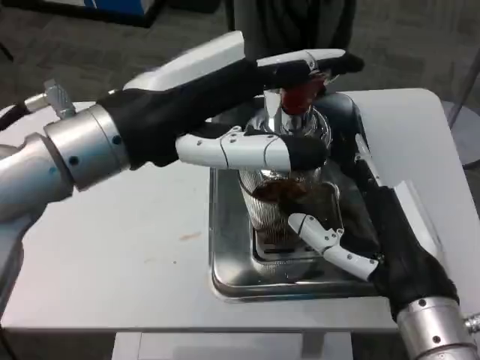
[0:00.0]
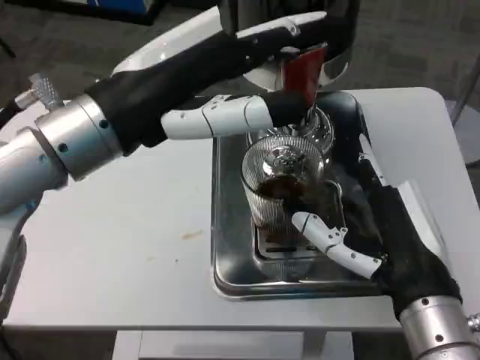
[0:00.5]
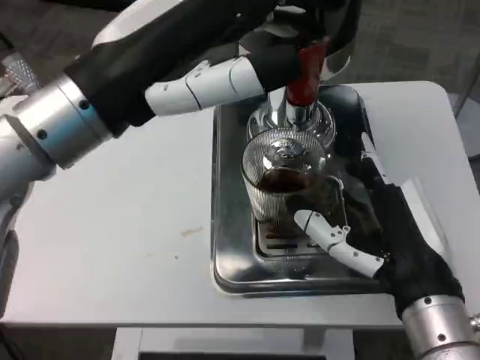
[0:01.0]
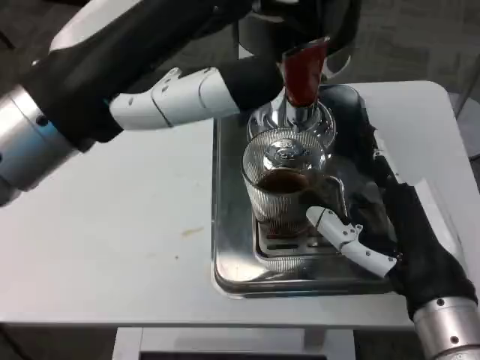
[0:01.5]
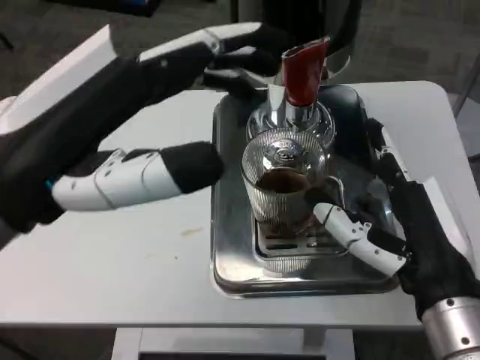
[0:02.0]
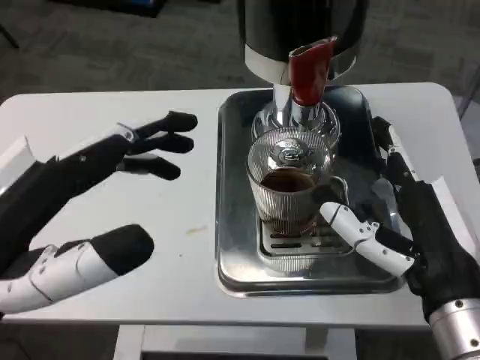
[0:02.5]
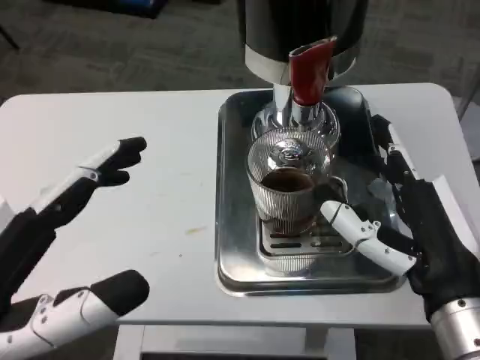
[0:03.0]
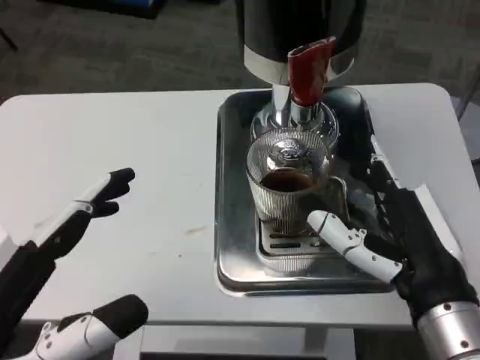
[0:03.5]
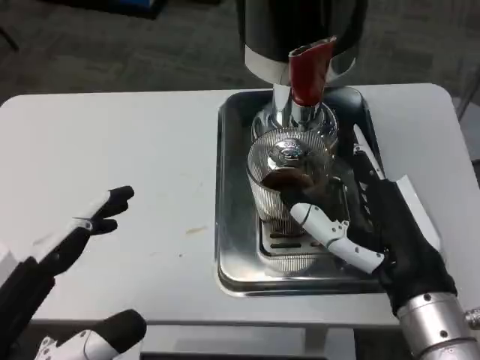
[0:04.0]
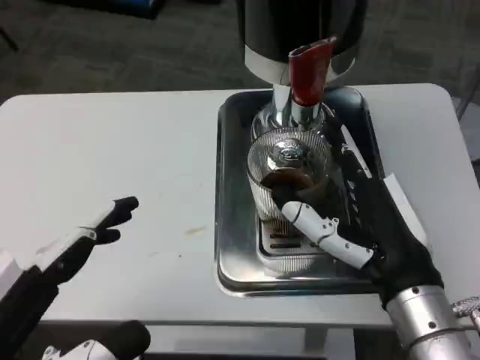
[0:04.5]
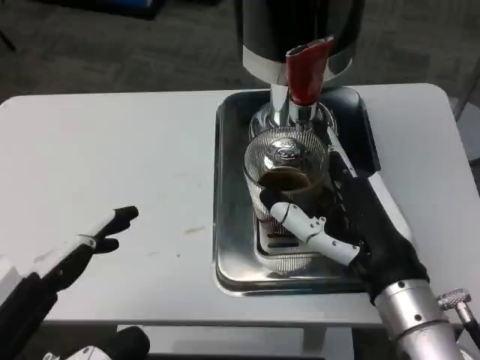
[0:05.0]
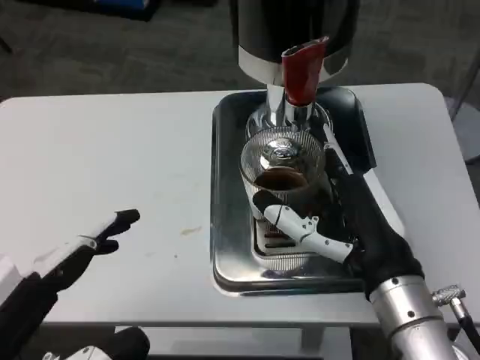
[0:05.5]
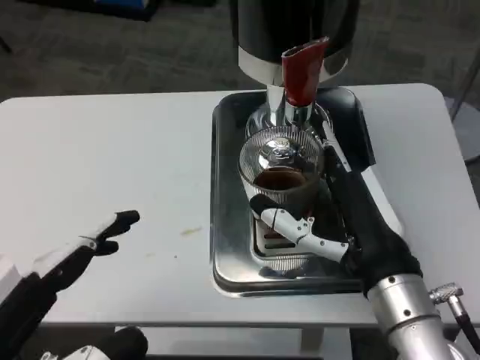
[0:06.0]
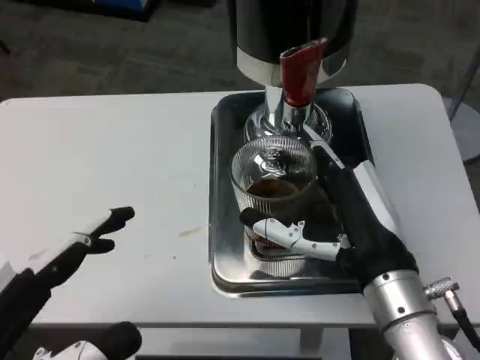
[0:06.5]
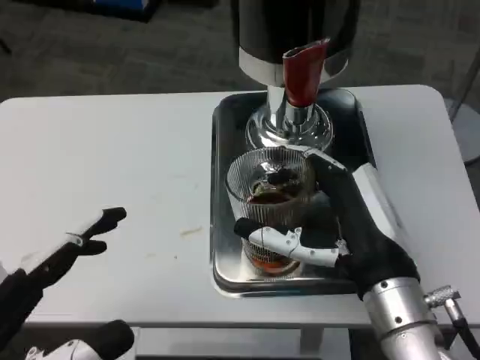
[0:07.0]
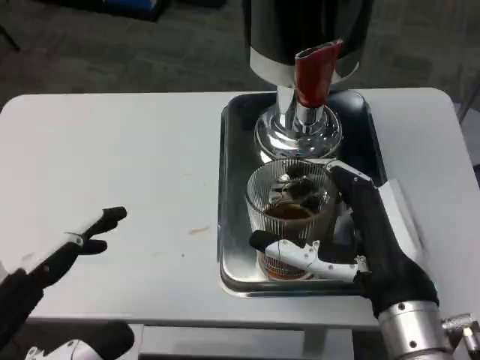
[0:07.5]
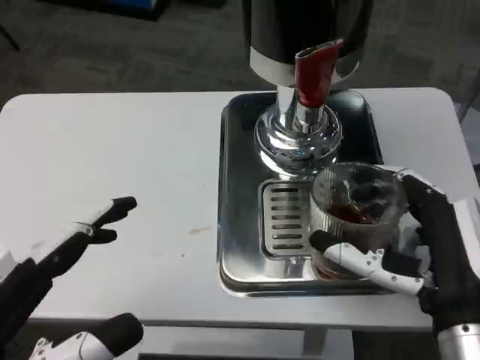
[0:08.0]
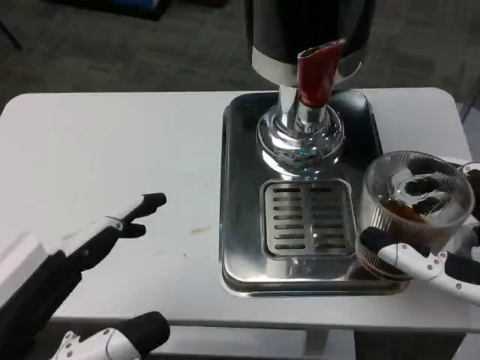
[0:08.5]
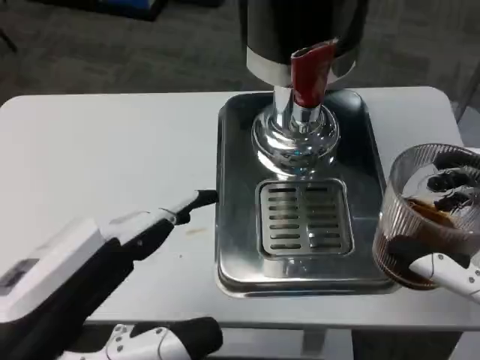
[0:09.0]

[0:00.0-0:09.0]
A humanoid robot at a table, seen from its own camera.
Task of the whole recording: Grasp the cup under the faucet to collect the drink, then remove the cup.
0:00.0 to 0:02.0: The left hand heads backward, covering some 10 cm.
0:02.0 to 0:04.5: The left hand is displaced downward and backward by about 15 cm.
0:07.0 to 0:09.0: The right hand travels backward and to the right by some 15 cm.

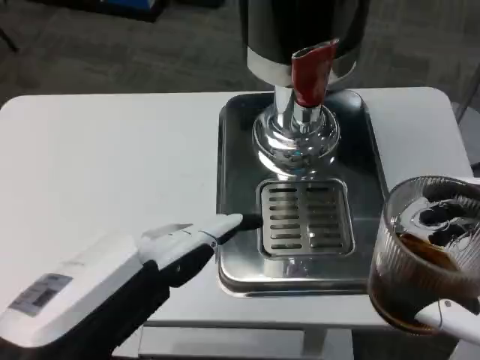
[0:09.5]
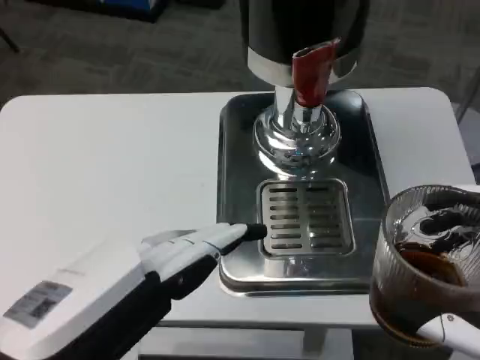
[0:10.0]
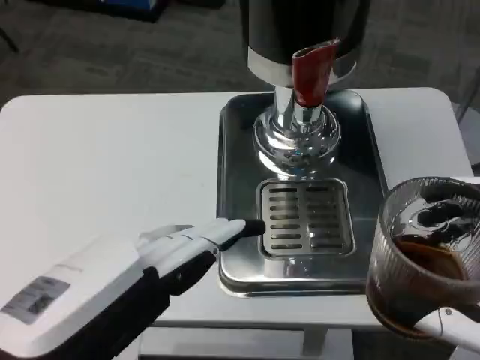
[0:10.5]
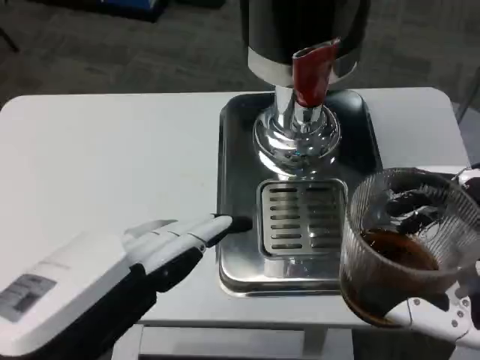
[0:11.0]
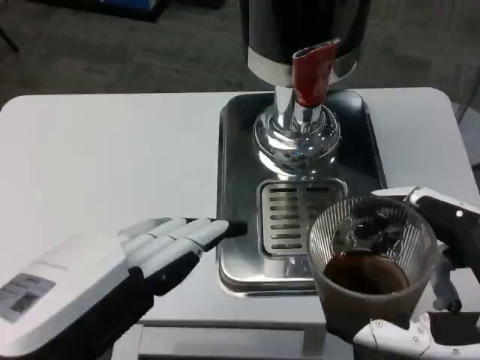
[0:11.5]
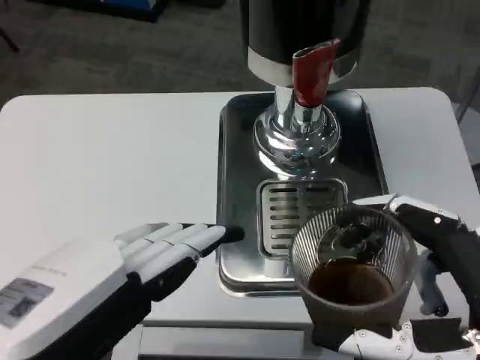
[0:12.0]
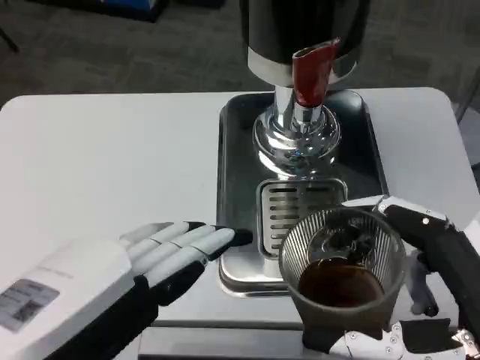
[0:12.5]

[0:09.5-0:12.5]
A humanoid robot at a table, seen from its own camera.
Task of the whole recording: Grasp the cup under the faucet to collect the drink, then remove the cup.
0:09.5 to 0:11.0: There are only small adjustments of the hands.

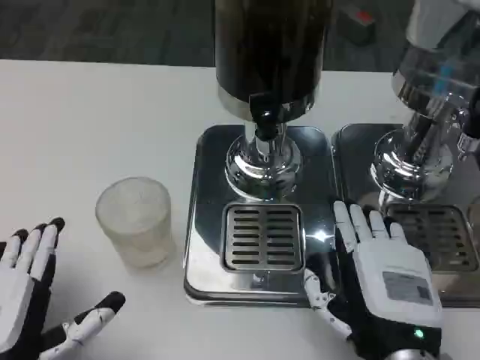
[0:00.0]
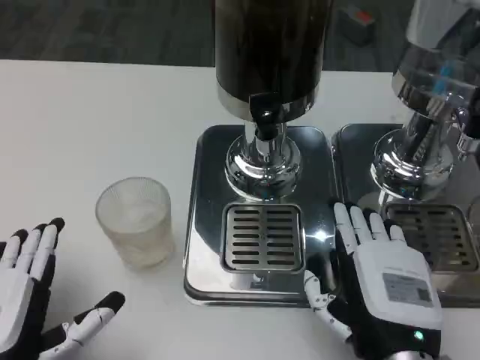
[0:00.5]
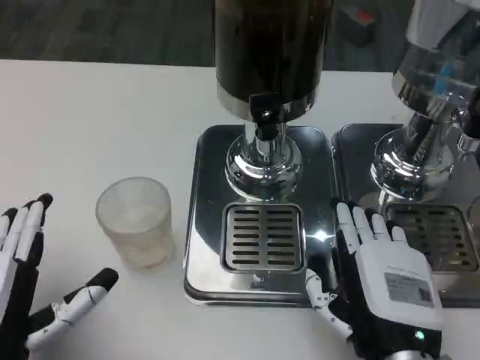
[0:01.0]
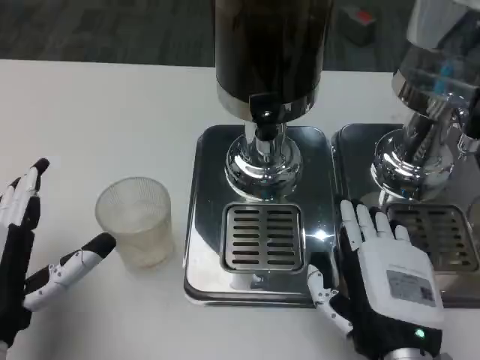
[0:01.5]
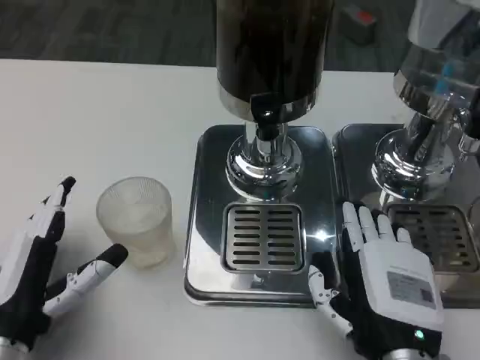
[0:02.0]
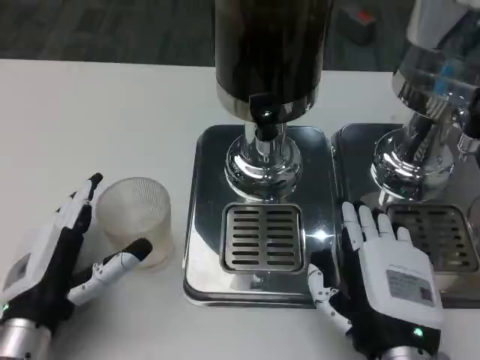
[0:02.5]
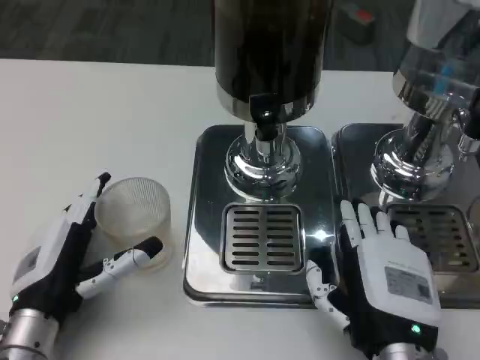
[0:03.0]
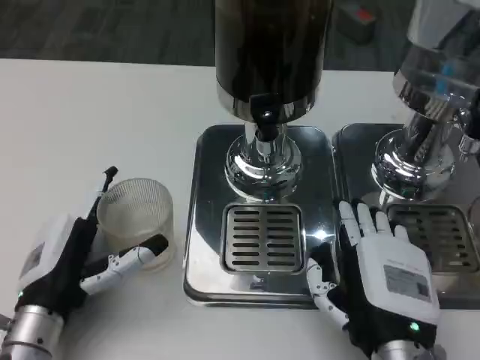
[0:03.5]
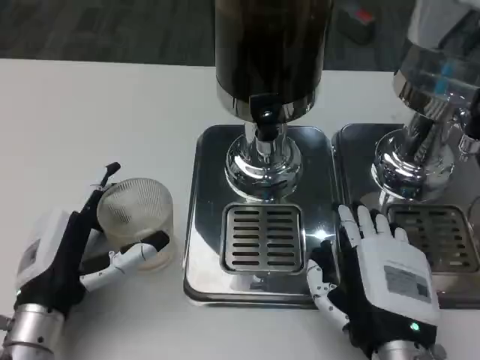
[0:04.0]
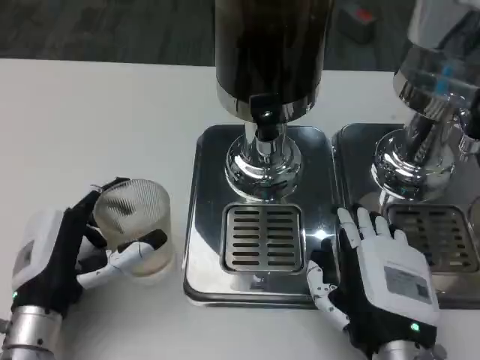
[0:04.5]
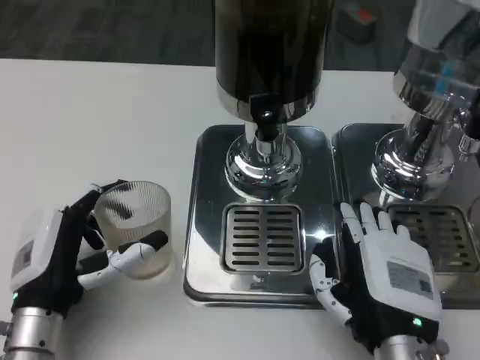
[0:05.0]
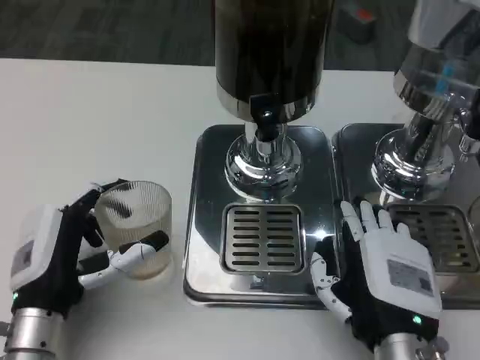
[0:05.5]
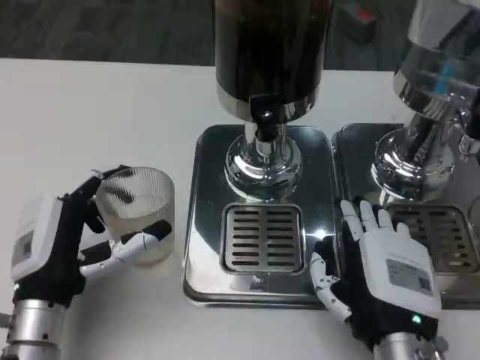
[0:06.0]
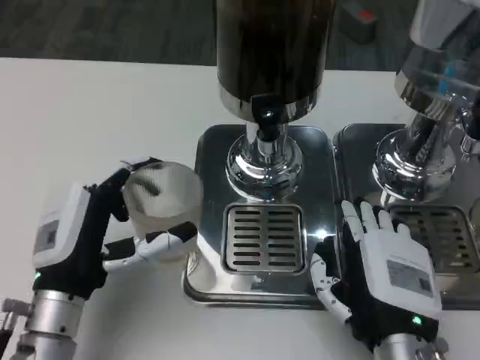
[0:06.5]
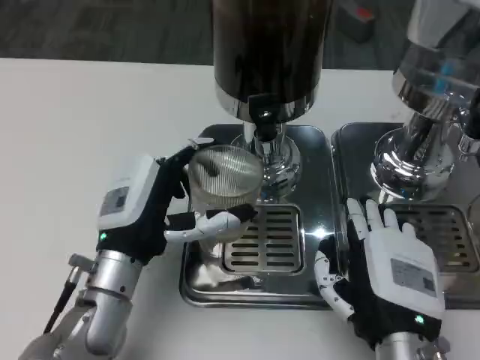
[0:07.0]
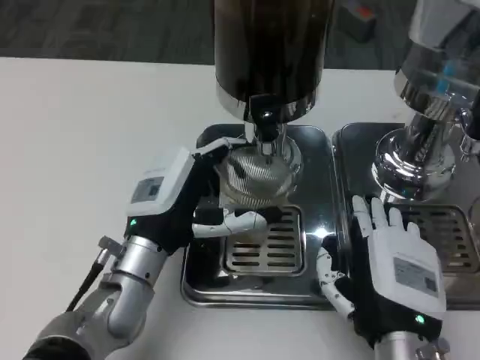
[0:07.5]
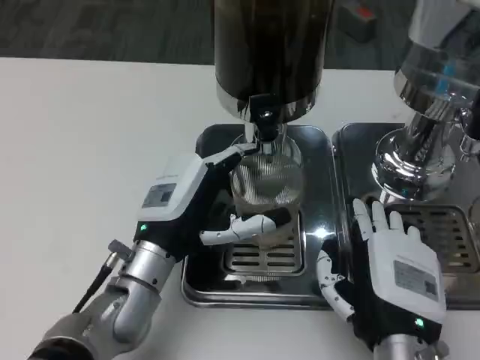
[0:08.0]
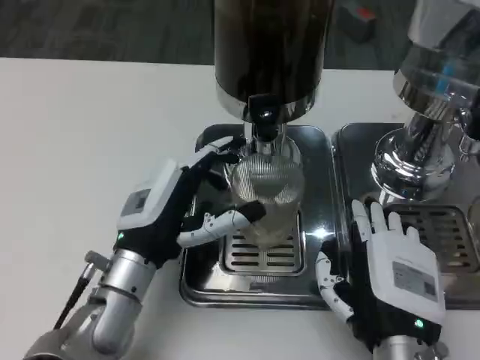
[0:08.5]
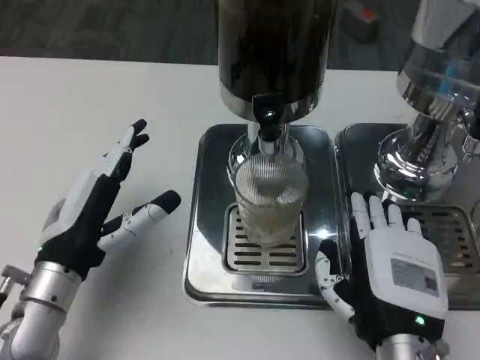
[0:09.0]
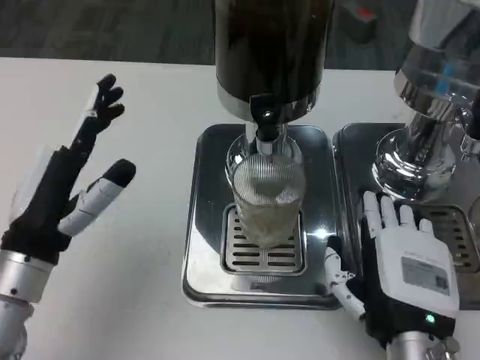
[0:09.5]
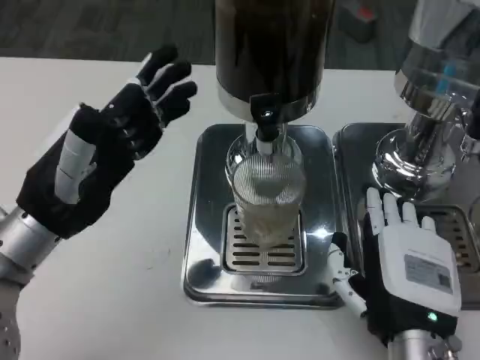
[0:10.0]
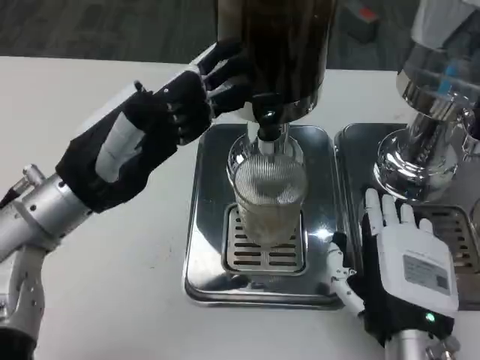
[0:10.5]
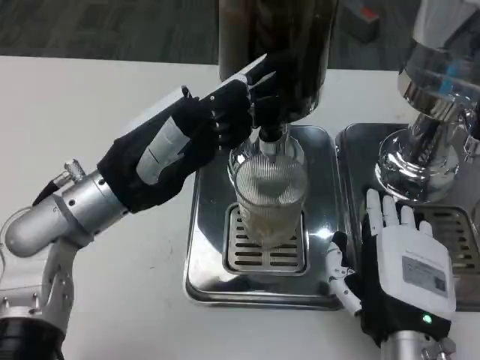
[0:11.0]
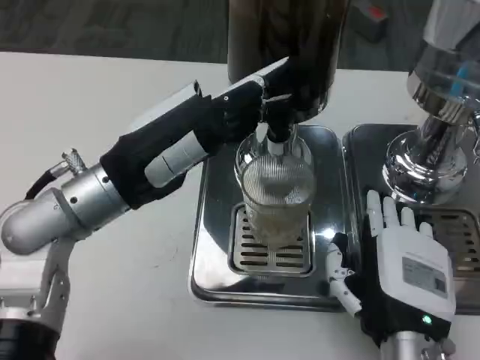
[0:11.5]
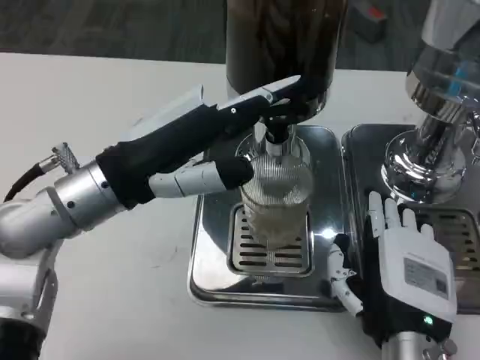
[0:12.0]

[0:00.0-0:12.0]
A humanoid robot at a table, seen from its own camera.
Task of the whole recording: Grasp the cup under the faucet to collect the drink, then remove the cup.
0:00.0 to 0:02.0: The left hand is displaced forward by roughly 5 cm.
0:02.0 to 0:06.0: The hands make only small movements.
0:06.0 to 0:08.0: The left hand goes some 10 cm to the right and forward.
0:08.0 to 0:10.0: The left hand goes some 15 cm to the left and upward.
0:10.0 to 0:12.0: The left hand travels to the right by about 5 cm.

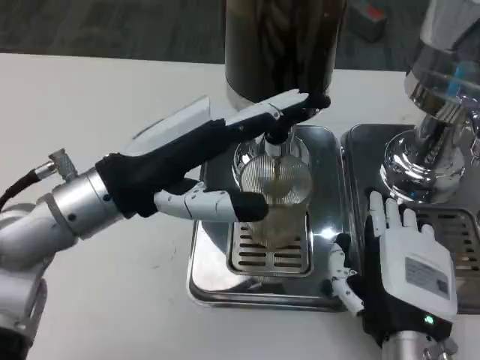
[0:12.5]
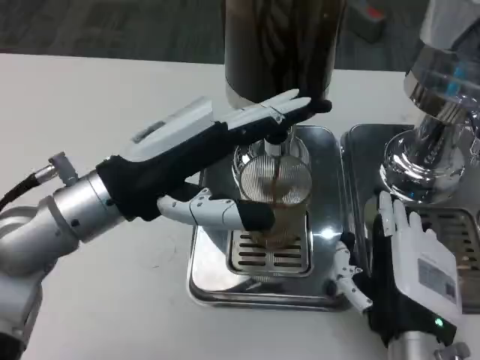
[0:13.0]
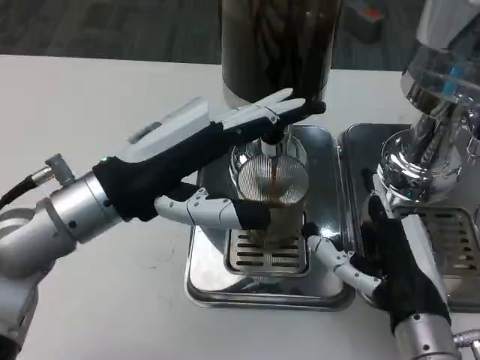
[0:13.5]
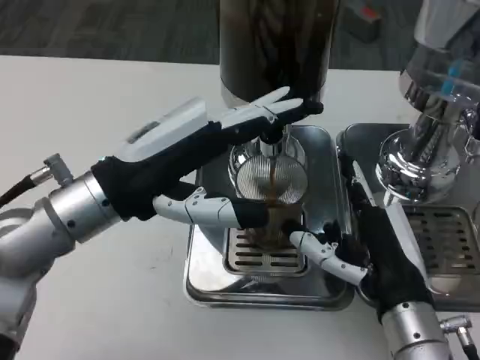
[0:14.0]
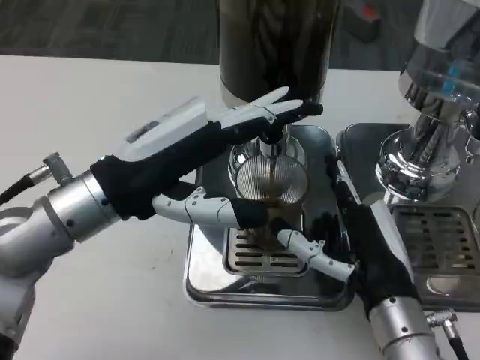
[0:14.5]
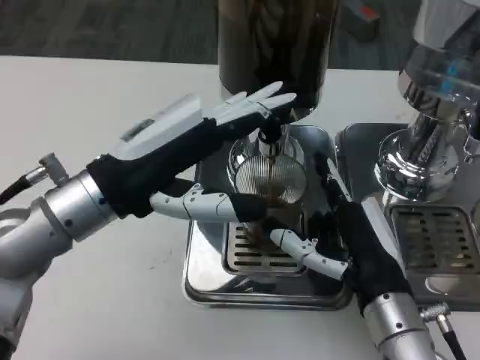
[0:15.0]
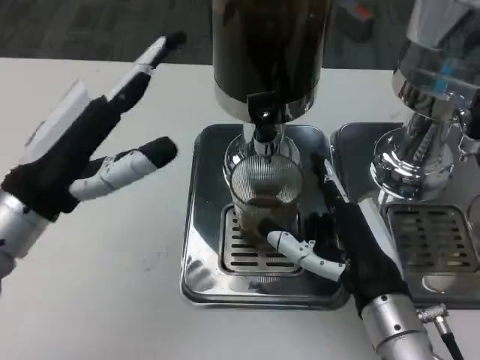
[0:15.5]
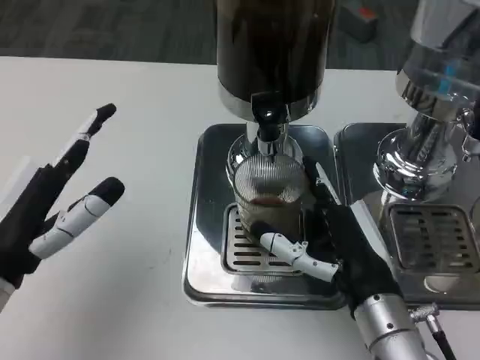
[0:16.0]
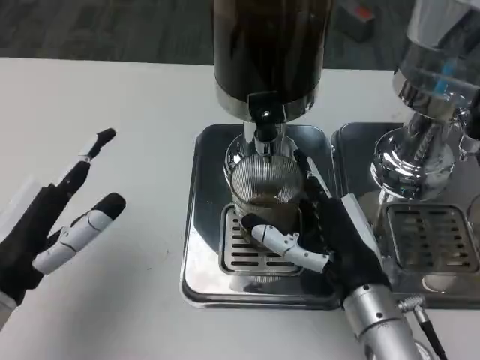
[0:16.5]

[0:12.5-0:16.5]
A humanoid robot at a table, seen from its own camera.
Task of the whole recording: Grasp the cup under the faucet to collect the drink, then remove the cup.
0:14.5 to 0:16.5: The left hand travels downward, to the left and backward by some 15 cm.
